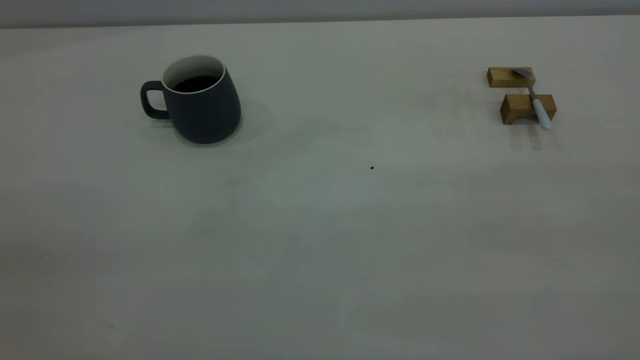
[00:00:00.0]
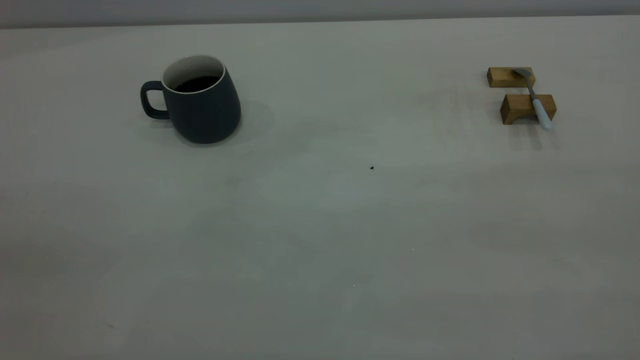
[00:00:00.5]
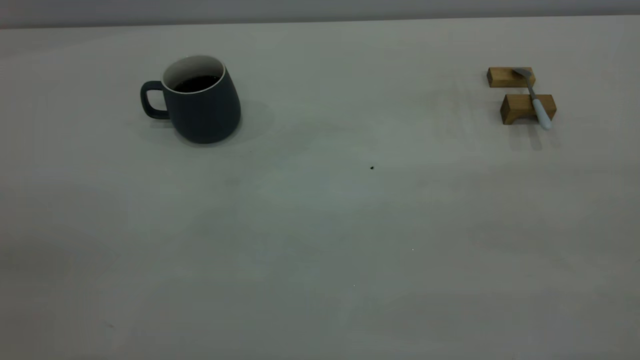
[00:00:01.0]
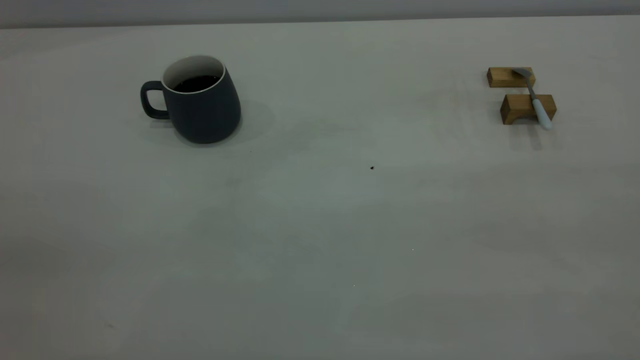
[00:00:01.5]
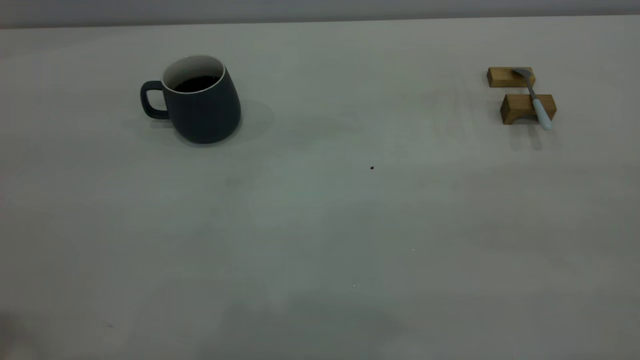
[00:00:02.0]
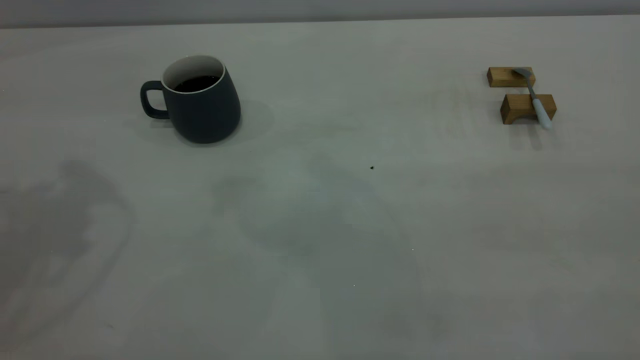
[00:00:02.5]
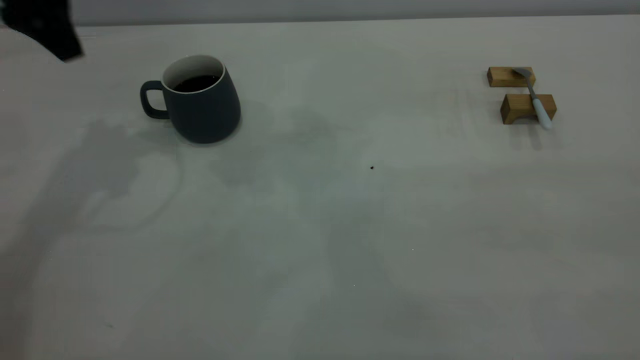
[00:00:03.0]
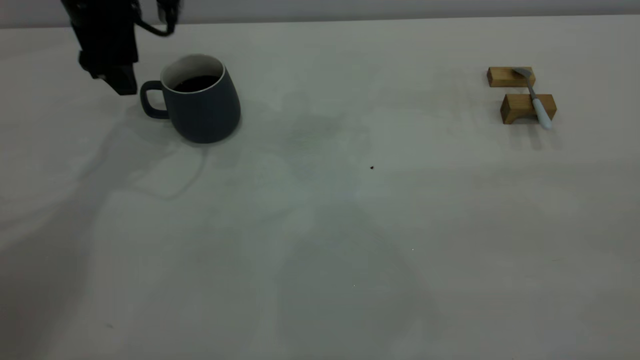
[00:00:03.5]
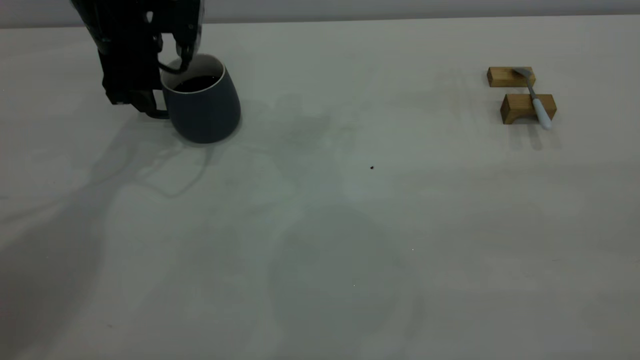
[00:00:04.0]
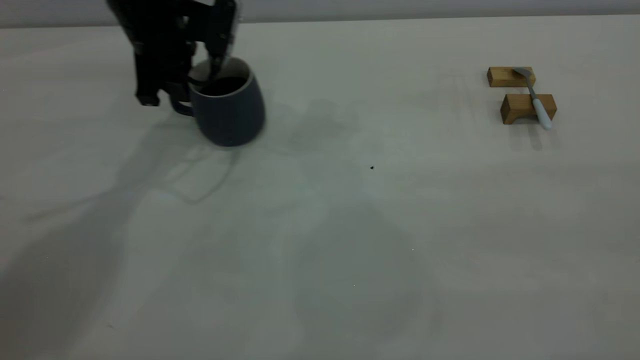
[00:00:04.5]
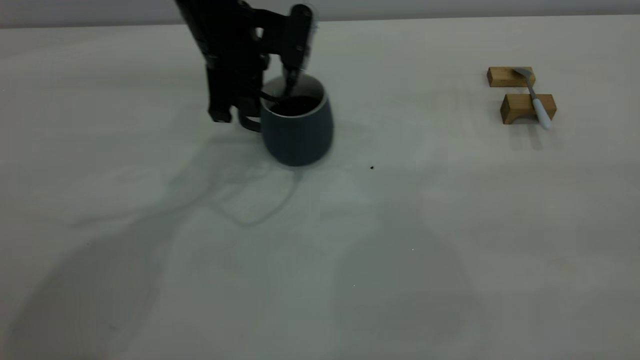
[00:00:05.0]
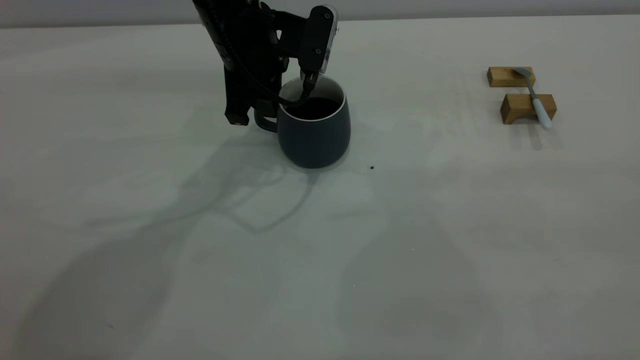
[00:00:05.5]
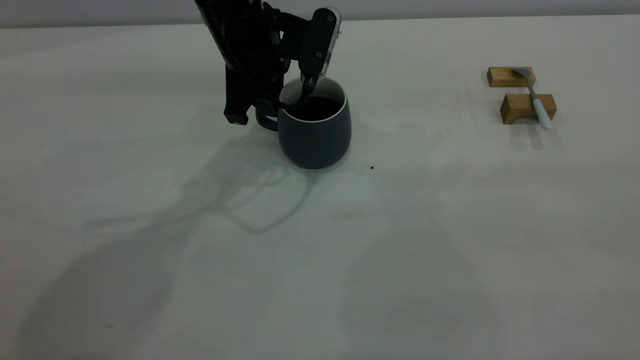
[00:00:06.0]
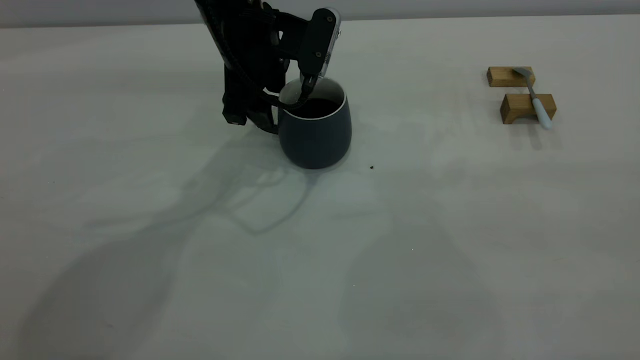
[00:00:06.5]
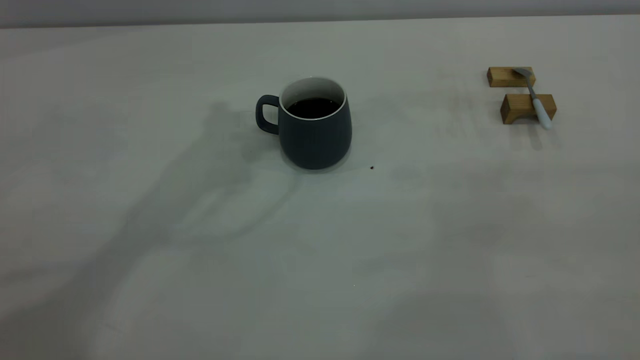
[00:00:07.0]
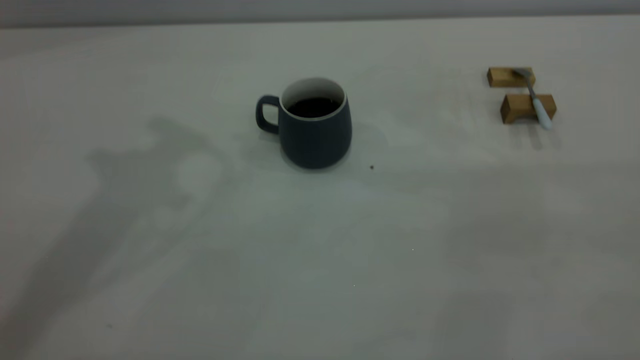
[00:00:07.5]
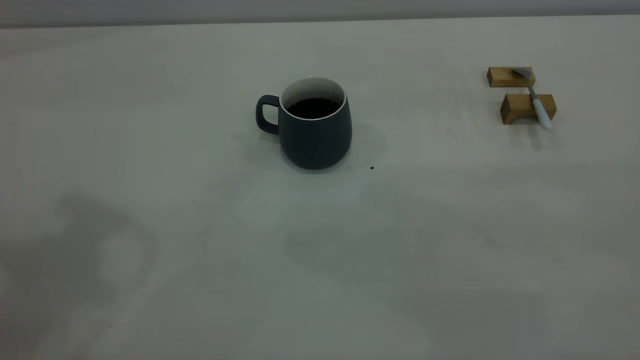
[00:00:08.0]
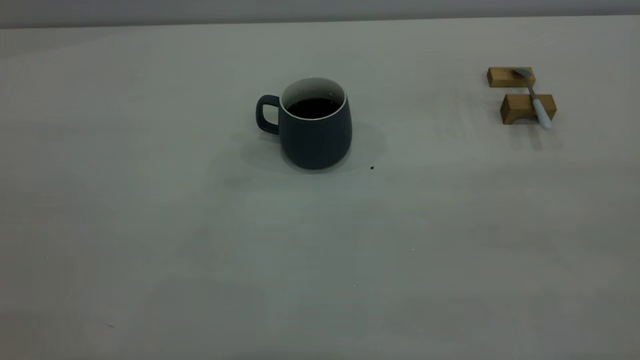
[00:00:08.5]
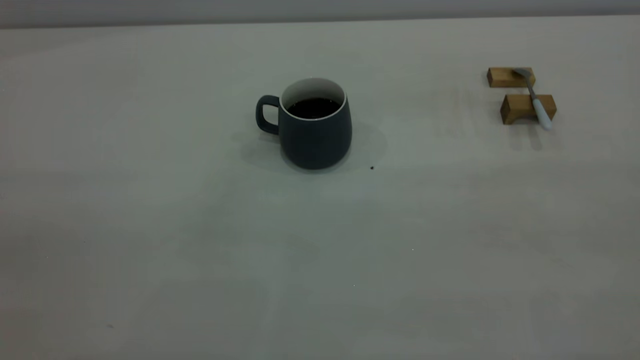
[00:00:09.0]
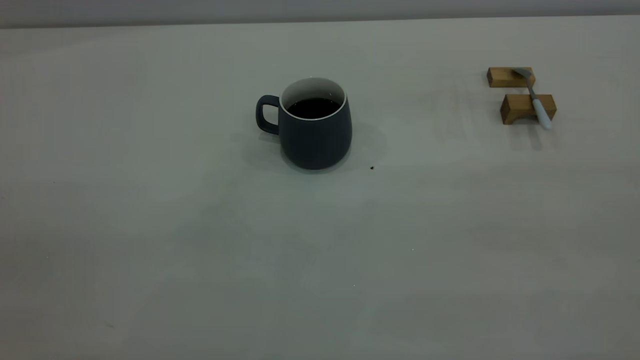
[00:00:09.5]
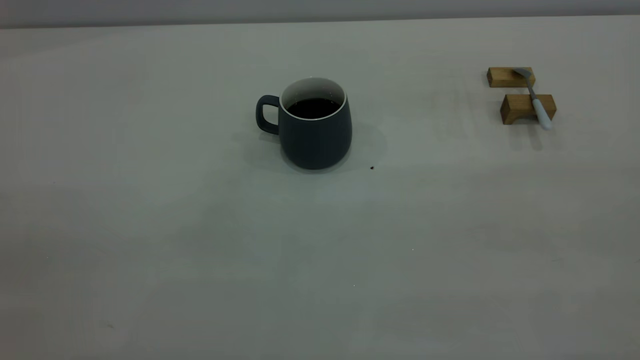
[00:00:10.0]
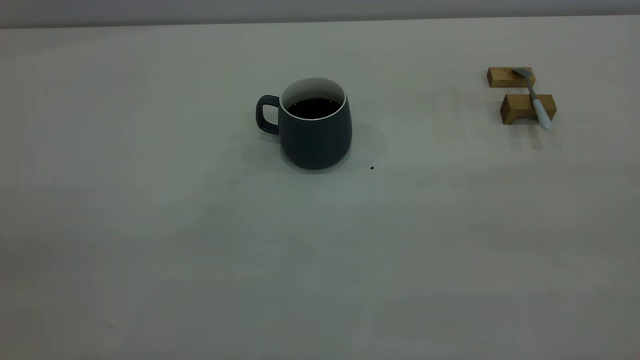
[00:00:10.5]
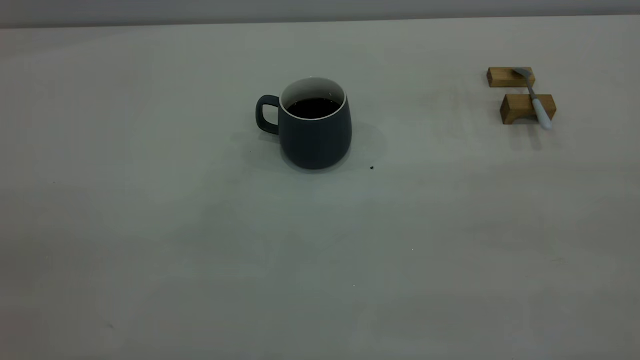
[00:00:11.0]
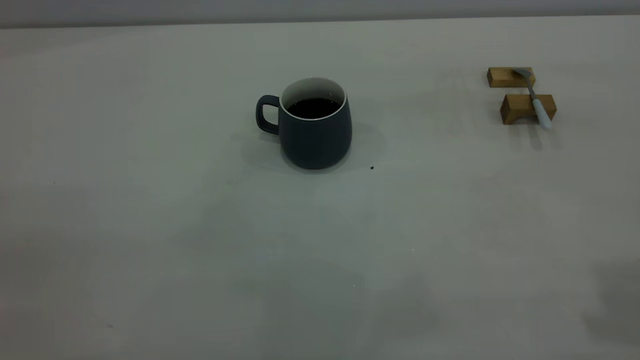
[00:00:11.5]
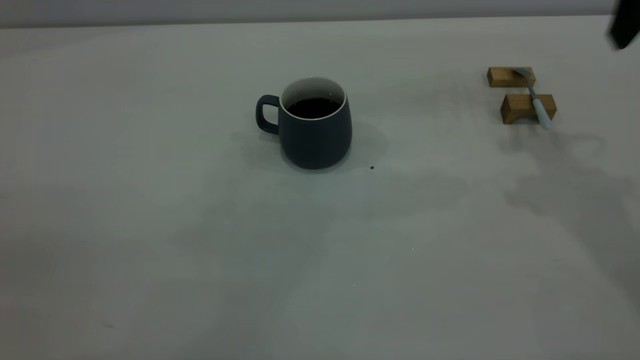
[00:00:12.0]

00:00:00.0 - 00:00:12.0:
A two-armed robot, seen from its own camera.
Step, 00:00:00.0 - 00:00:06.5: Move the cup with coffee to the center of view.
00:00:02.0 - 00:00:04.0: The left gripper heads forward and downward, covering about 40 cm, and opens its fingers.
00:00:04.0 - 00:00:06.0: The left gripper moves to the right, approximately 15 cm, and closes.
00:00:06.0 - 00:00:08.0: The left gripper shifts some 40 cm upward, backward and to the left, and opens and closes again.

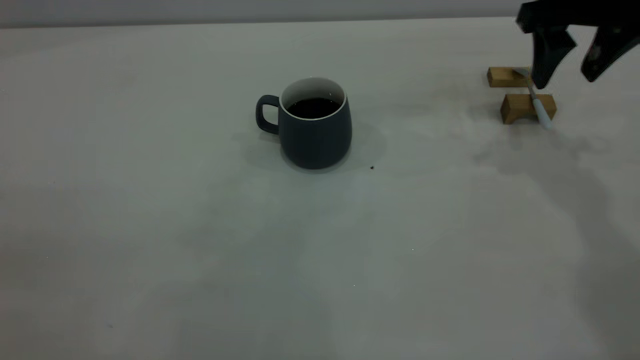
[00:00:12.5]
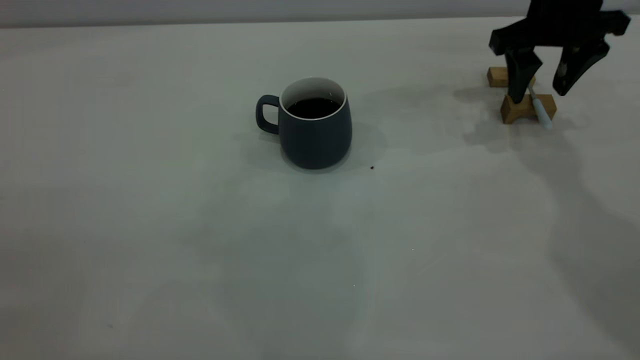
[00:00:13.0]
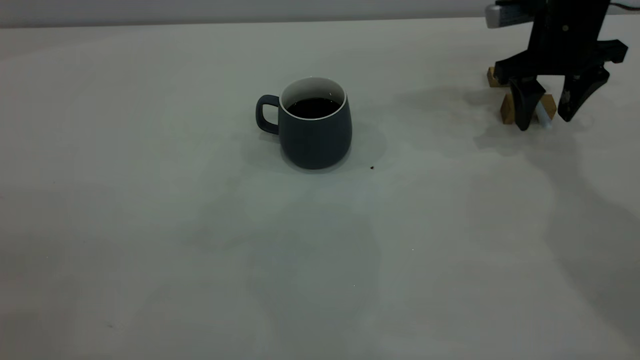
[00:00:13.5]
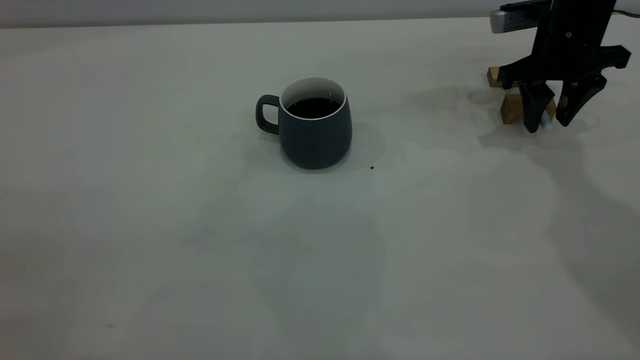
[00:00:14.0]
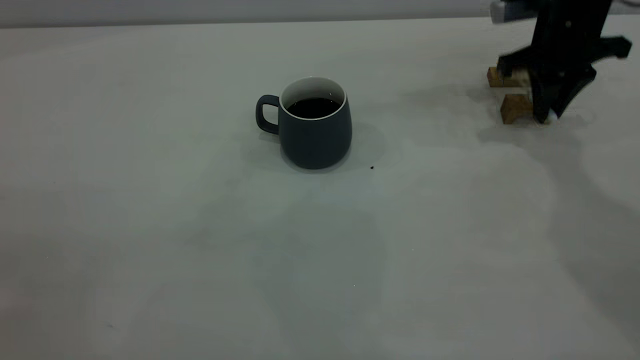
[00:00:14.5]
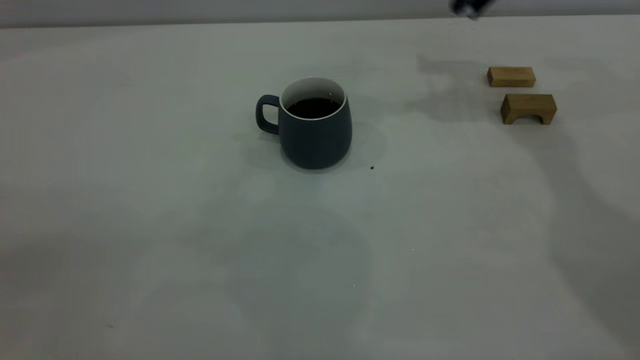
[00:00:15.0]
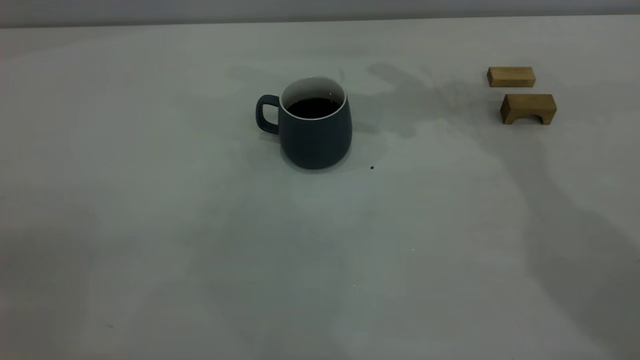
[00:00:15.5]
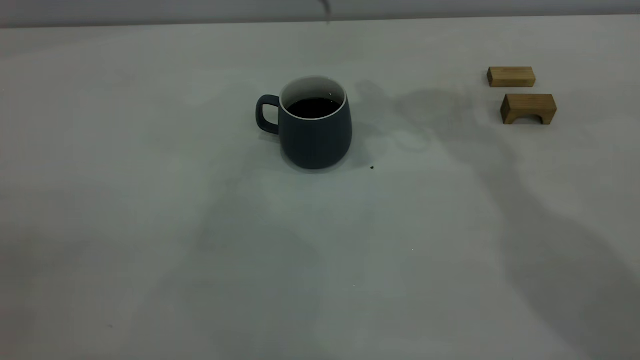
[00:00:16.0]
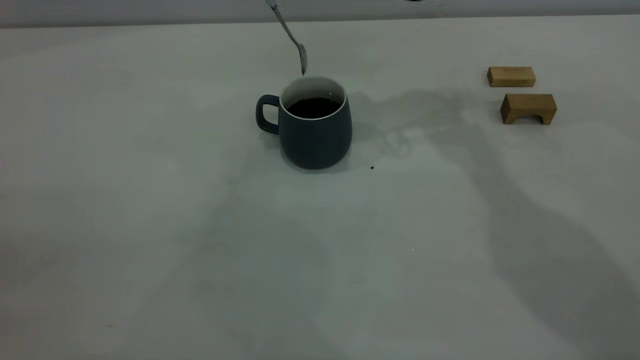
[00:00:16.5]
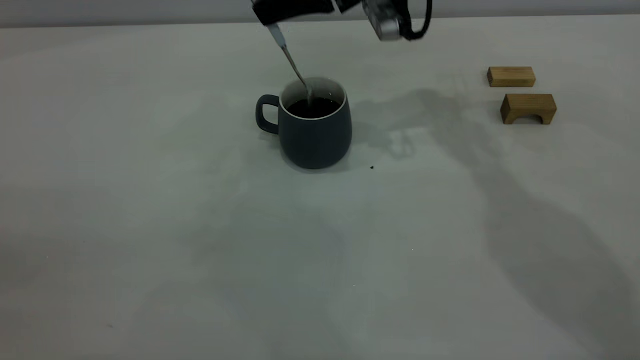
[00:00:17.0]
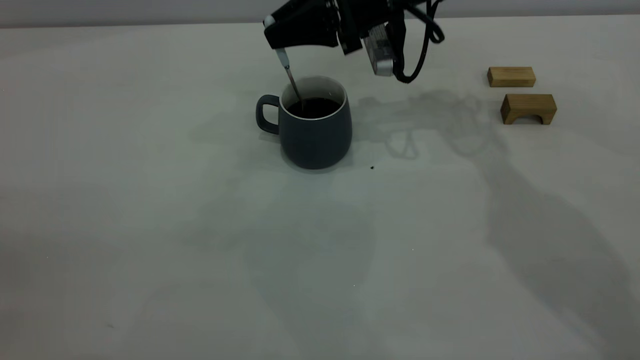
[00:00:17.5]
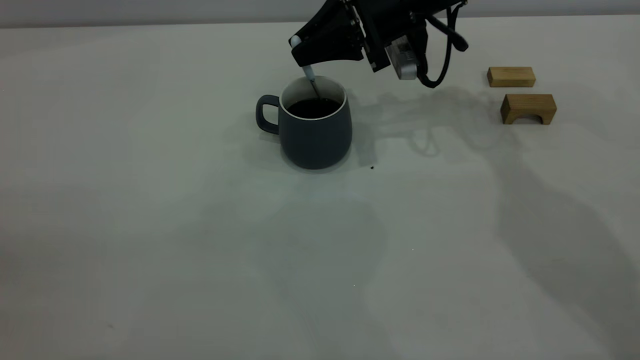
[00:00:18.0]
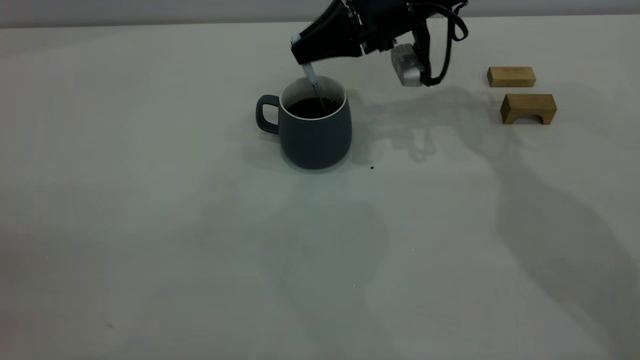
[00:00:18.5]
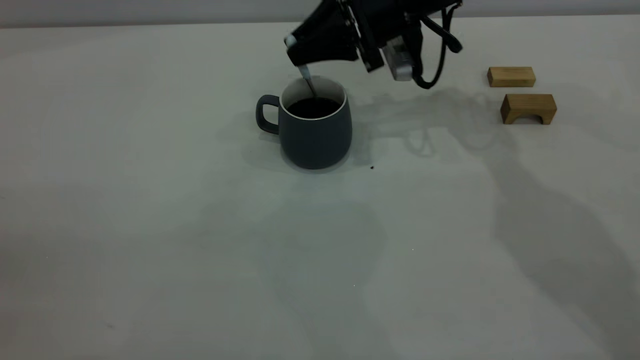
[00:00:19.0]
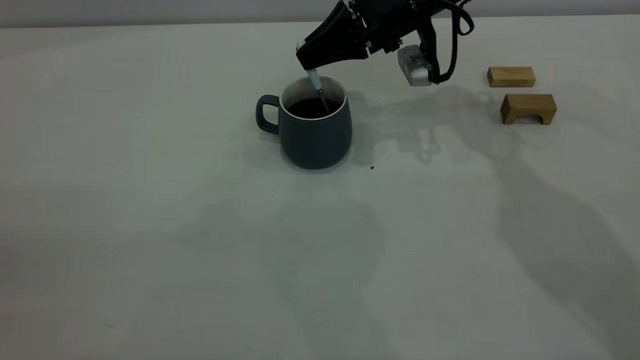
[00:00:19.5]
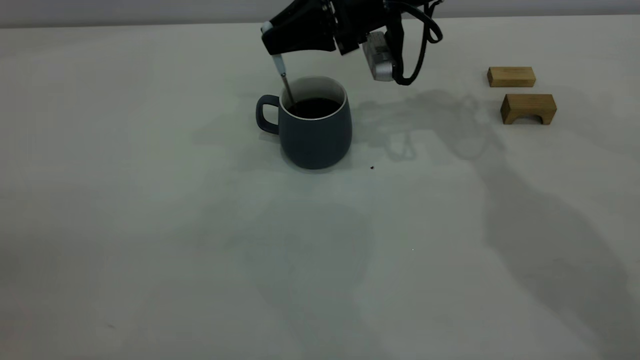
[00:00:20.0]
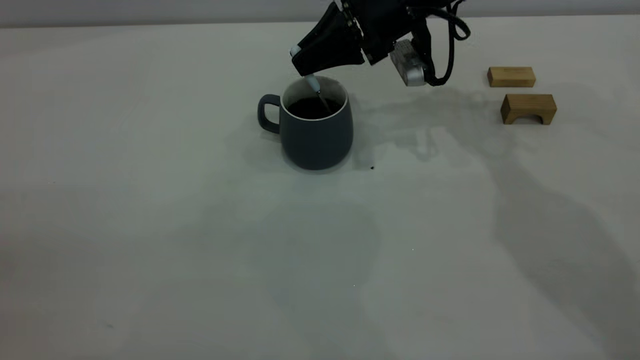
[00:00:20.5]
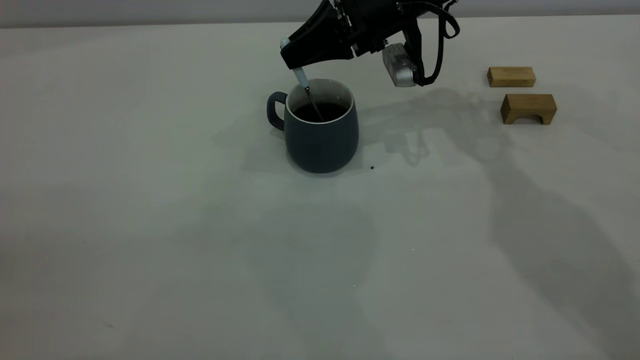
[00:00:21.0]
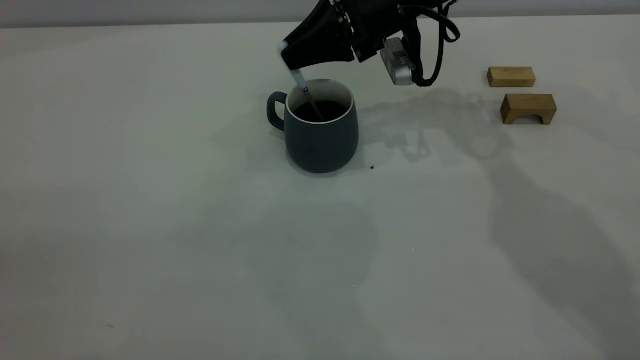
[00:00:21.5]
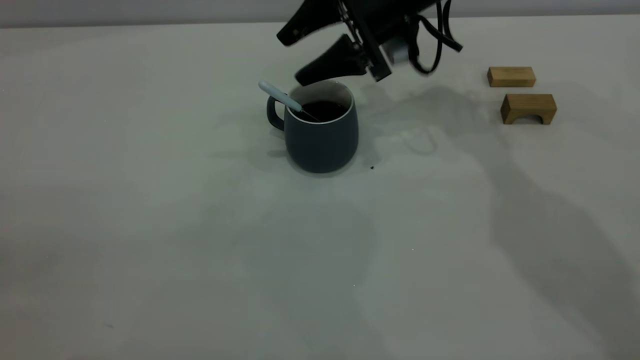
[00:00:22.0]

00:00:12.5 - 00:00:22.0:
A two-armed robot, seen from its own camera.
Step, 00:00:12.5 - 00:00:14.5: Pick up the spoon.
Step, 00:00:15.0 - 00:00:22.0: Stir the coffee in the cup.
00:00:12.5 - 00:00:14.5: The right gripper goes approximately 10 cm downward and forward, and closes up.
00:00:14.5 - 00:00:16.5: The right gripper is displaced to the left and upward by some 25 cm.
00:00:16.5 - 00:00:18.0: The right gripper goes about 10 cm downward.
00:00:20.0 - 00:00:22.0: The right gripper opens its fingers.
